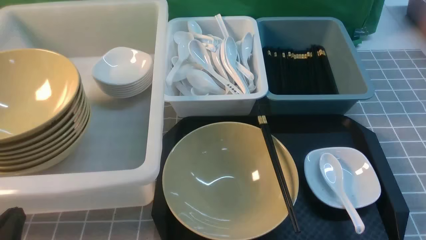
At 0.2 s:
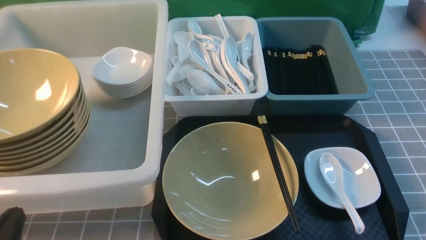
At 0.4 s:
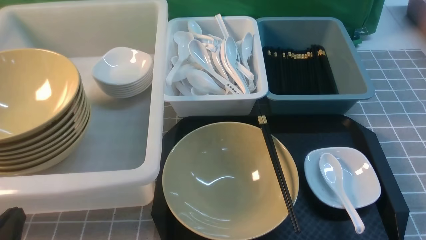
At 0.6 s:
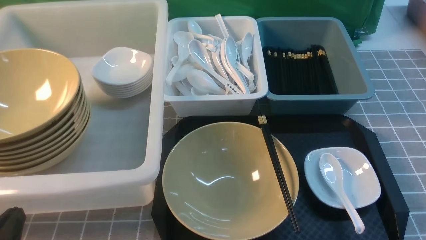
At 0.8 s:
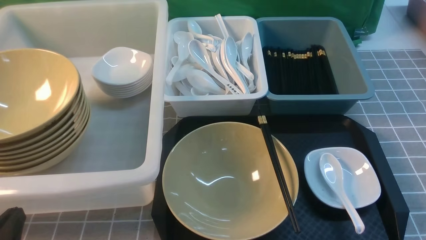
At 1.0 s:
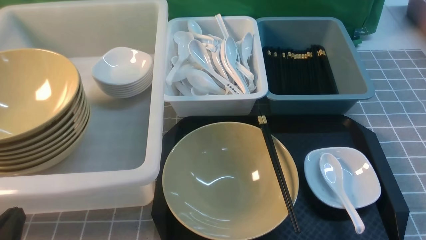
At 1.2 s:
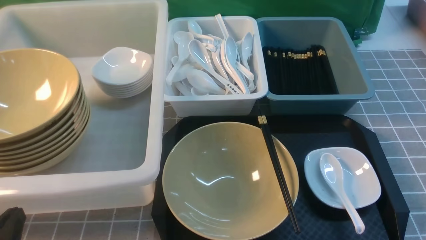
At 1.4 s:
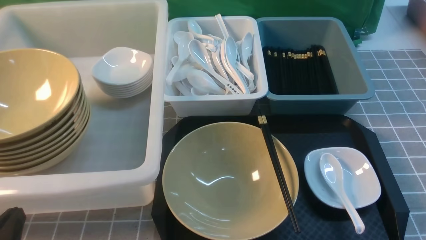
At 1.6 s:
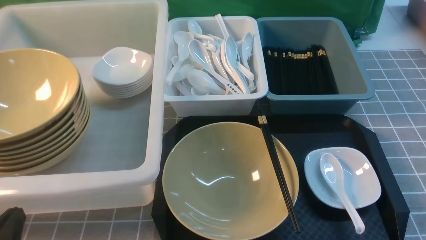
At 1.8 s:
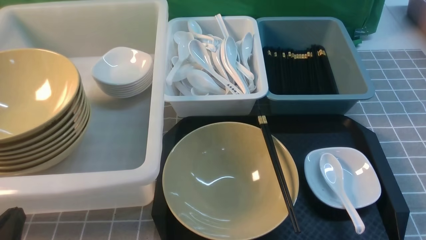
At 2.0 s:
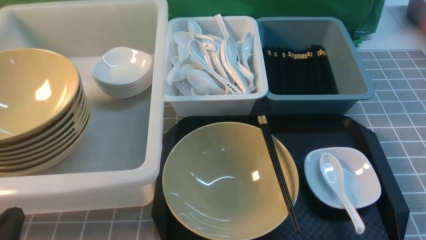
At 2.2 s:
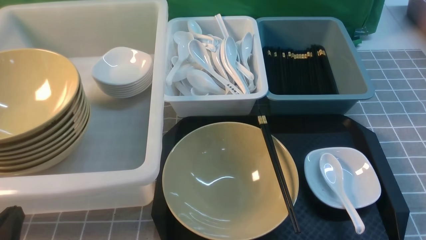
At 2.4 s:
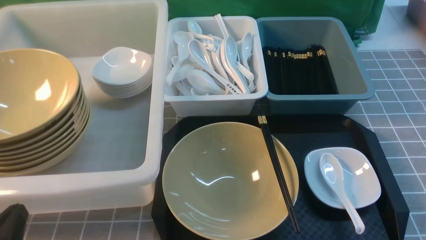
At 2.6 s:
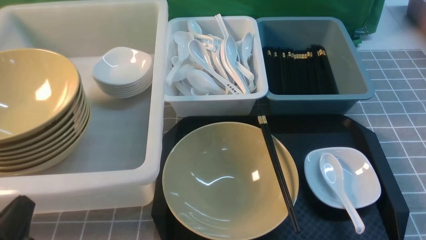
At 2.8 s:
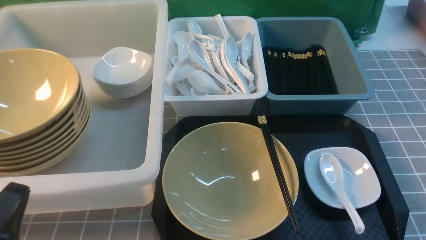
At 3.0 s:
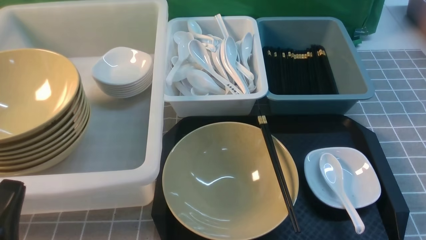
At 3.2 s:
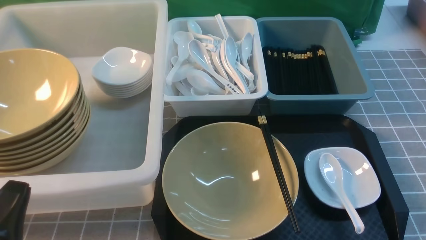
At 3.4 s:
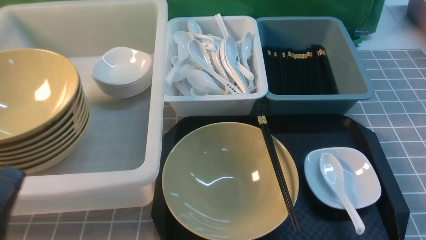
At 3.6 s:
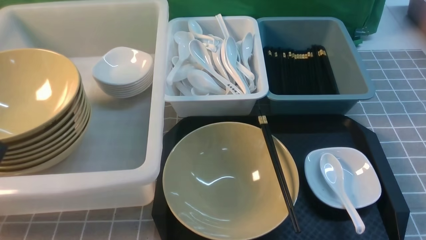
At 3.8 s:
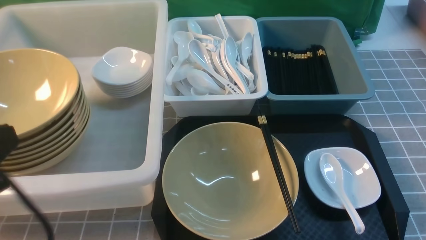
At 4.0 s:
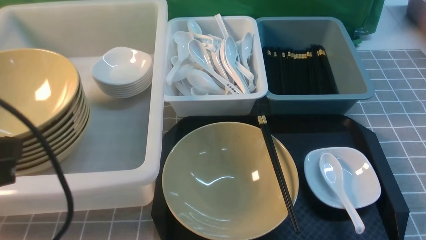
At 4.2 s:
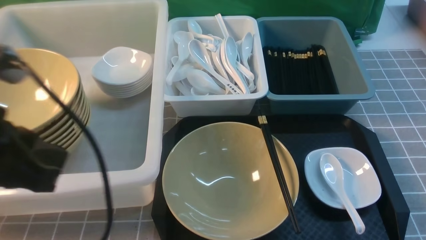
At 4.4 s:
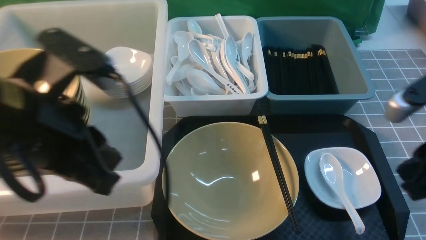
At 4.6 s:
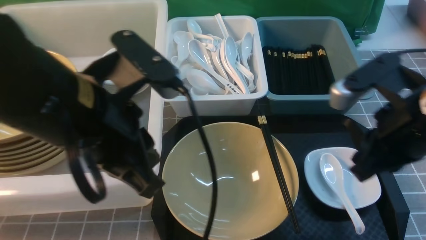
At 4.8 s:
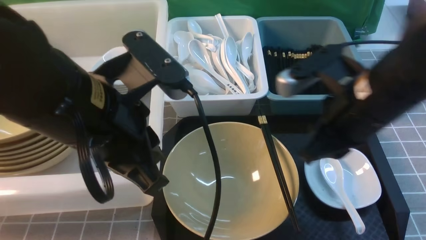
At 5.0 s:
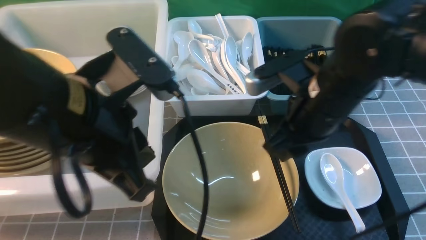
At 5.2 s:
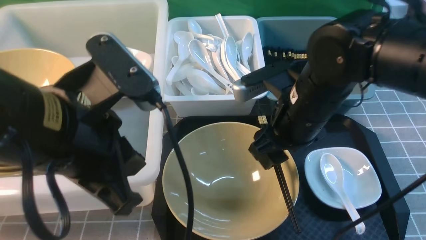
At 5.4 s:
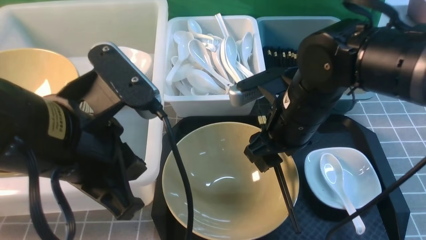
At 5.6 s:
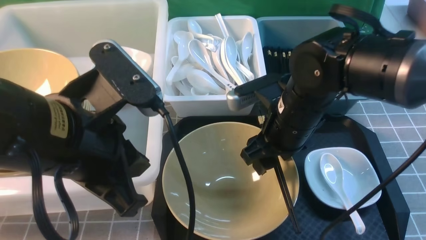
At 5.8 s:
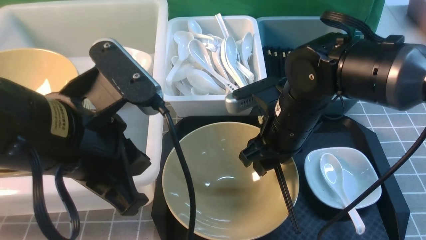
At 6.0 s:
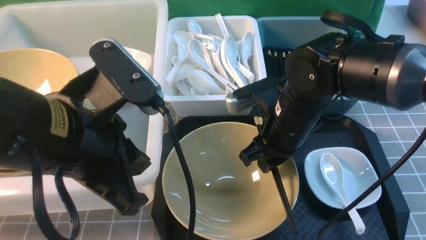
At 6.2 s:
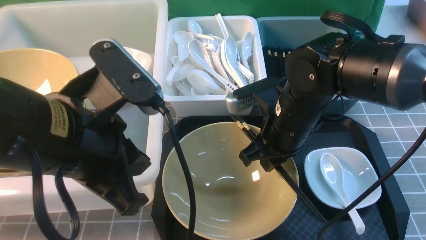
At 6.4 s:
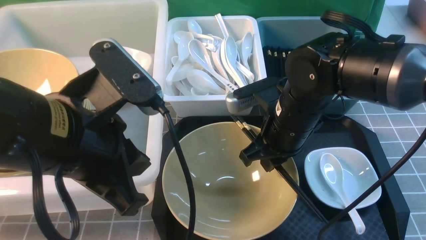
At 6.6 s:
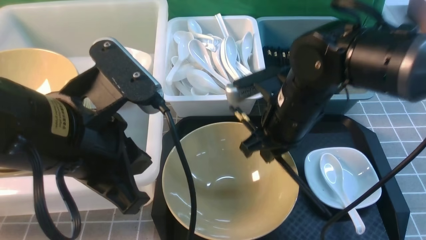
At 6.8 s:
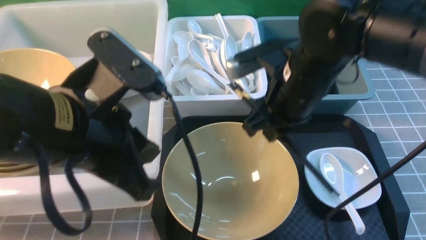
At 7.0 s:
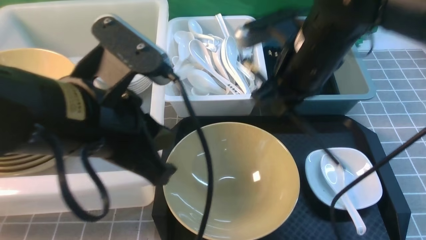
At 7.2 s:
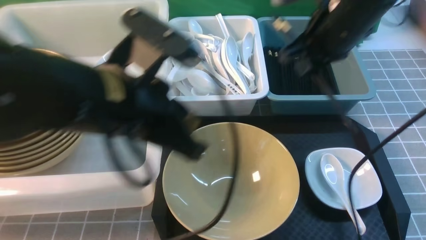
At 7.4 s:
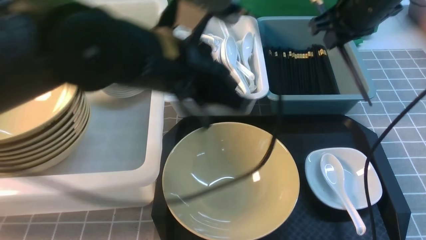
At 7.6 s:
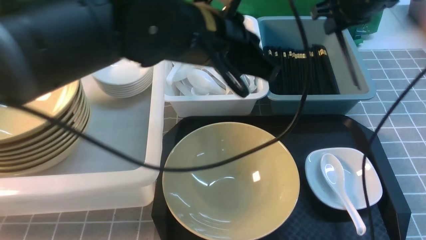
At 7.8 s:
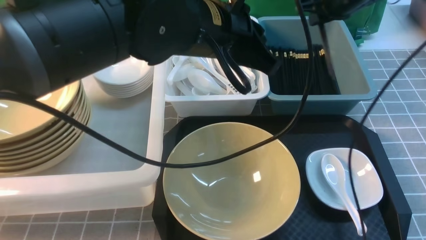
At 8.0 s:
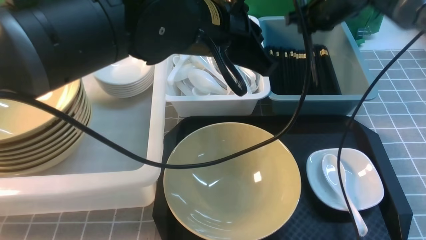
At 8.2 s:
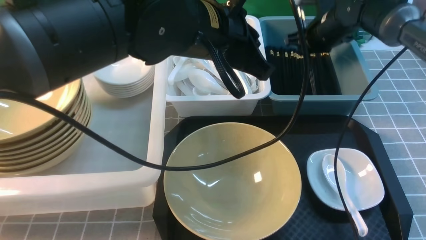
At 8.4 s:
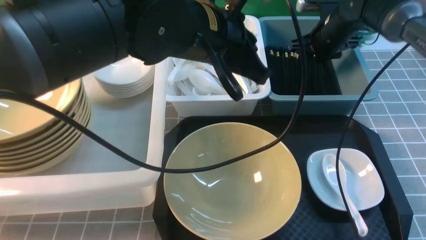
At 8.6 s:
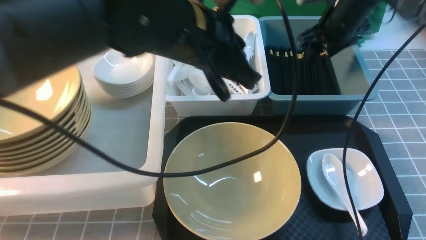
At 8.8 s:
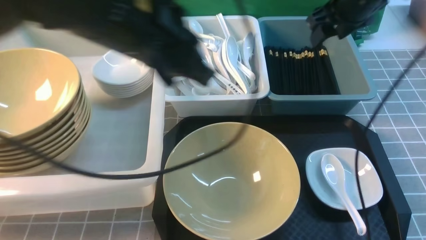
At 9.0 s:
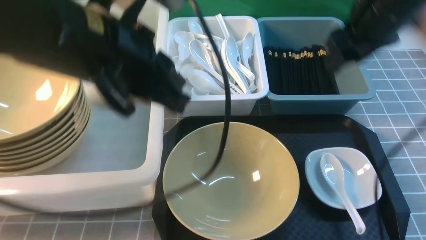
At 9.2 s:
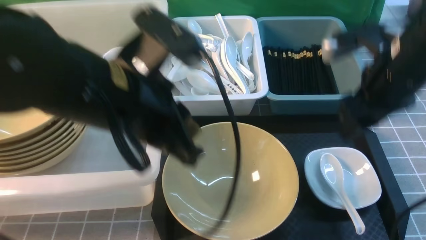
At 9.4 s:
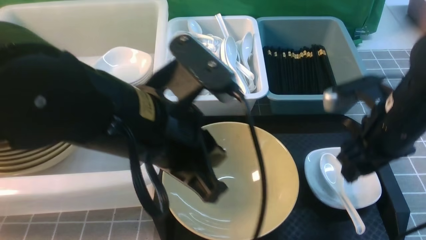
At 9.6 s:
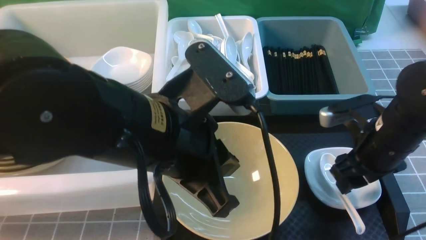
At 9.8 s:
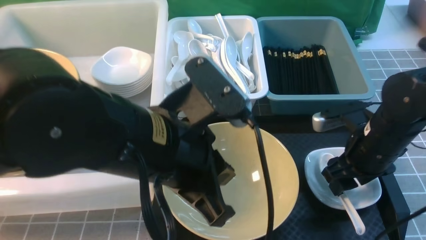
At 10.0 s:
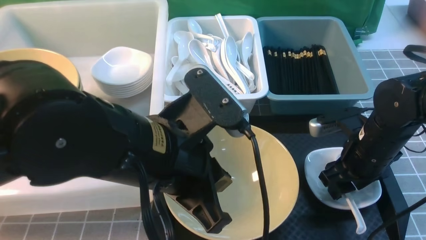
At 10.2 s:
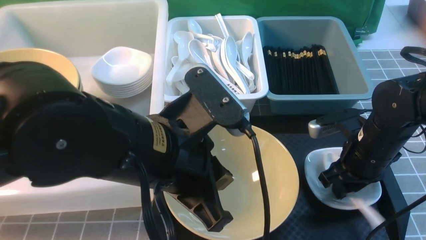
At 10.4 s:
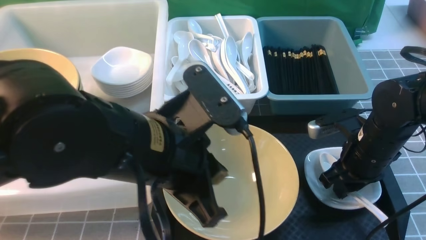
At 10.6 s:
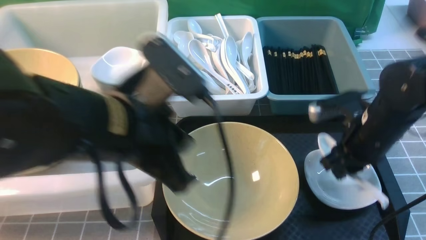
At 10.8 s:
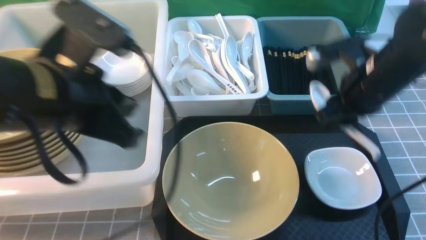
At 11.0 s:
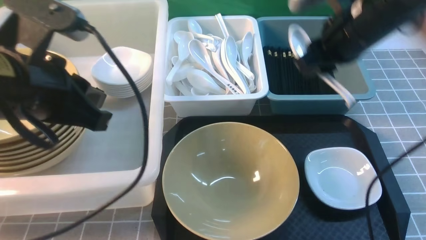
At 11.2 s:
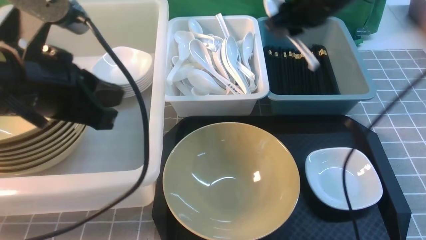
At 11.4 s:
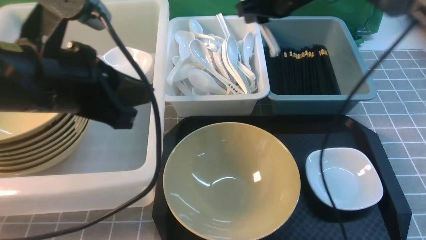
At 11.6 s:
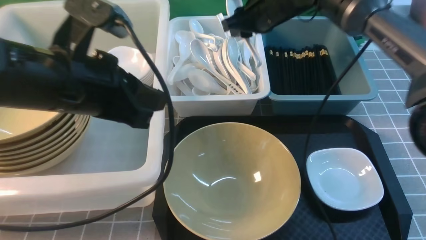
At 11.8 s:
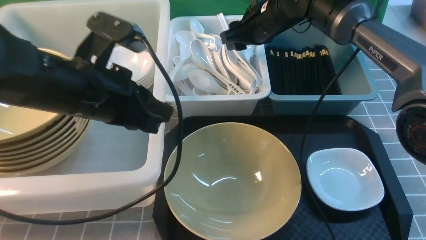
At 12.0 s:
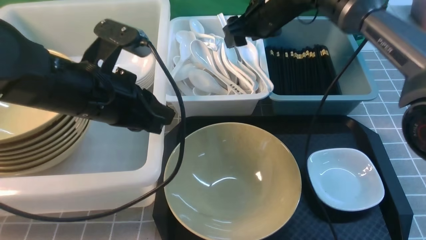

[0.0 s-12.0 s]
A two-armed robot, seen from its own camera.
Task of the whole recording: on grey table put chopsticks spoon bowls plates into blue grey white boxes.
Step, 0.0 to 6.6 s: use the right arm to grab the chopsticks.
Step, 6.8 to 8.4 s: use the right arm to put the chopsticks into the small storage box on the right.
Step, 8.6 to 10.8 s: use the right arm to grab the soup spoon in the middle.
0.0 to 1.6 s: Both grippers stay put.
3.0 to 4.4 s: The left gripper is displaced upward, forward and to the right by approximately 20 cm, while the right gripper travels upward, forward and to the left by approximately 20 cm, and closes up.
4.4 to 6.0 s: The right gripper is displaced to the left, forward and downward by approximately 20 cm, and opens up.
6.0 to 7.6 s: The right gripper travels forward, to the right and upward by some 20 cm. The left gripper travels forward and to the right by about 15 cm.
7.6 to 9.0 s: The left gripper travels to the left and backward by approximately 10 cm. The right gripper moves backward, about 10 cm, and opens.
9.0 to 10.4 s: The right gripper heads downward and backward, covering some 15 cm, and closes its fingers, while the left gripper moves some 5 cm.
10.4 to 12.0 s: The left gripper goes some 10 cm forward and to the left, while the right gripper goes some 25 cm forward, upward and to the left, and opens.

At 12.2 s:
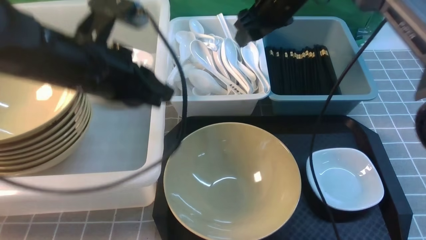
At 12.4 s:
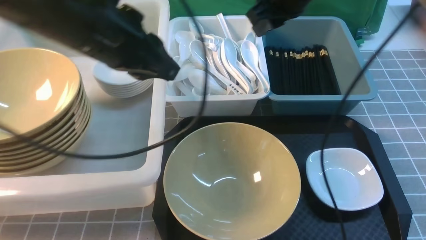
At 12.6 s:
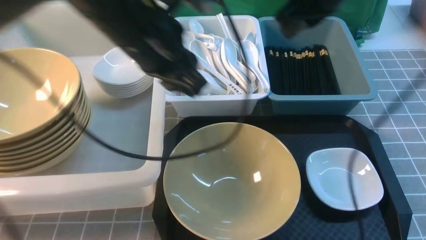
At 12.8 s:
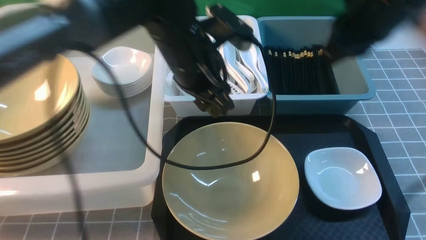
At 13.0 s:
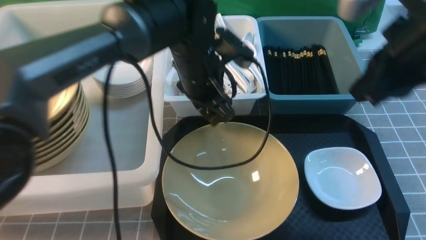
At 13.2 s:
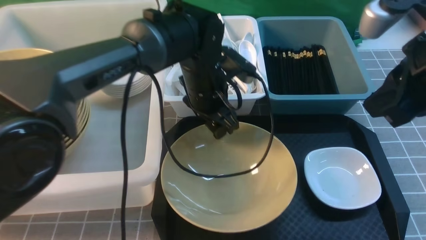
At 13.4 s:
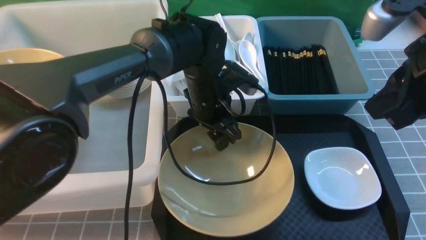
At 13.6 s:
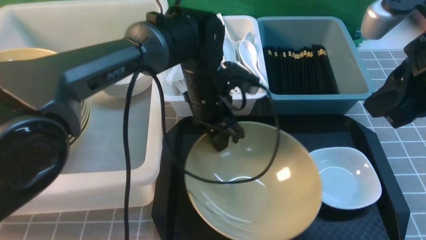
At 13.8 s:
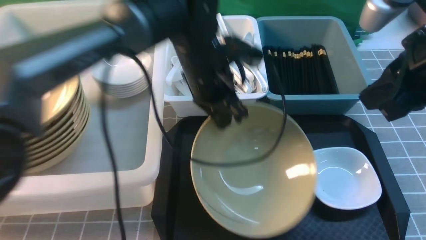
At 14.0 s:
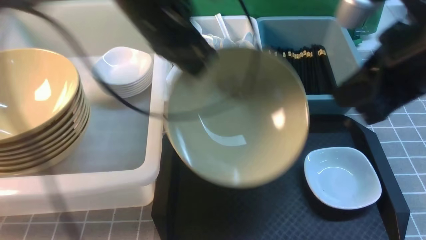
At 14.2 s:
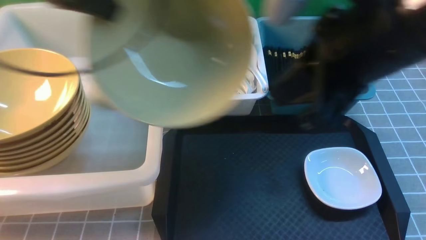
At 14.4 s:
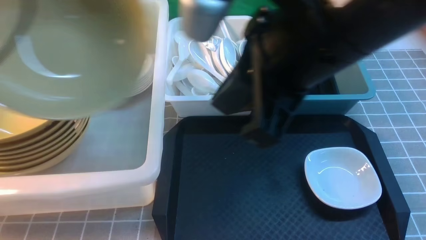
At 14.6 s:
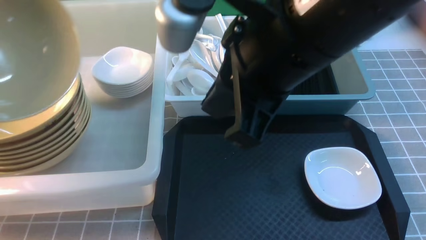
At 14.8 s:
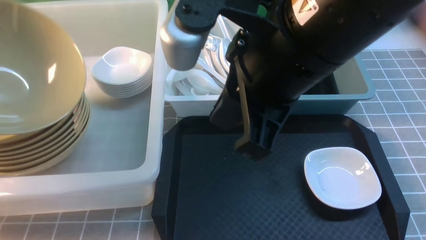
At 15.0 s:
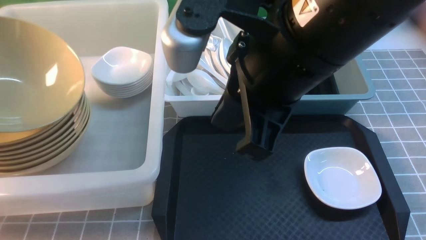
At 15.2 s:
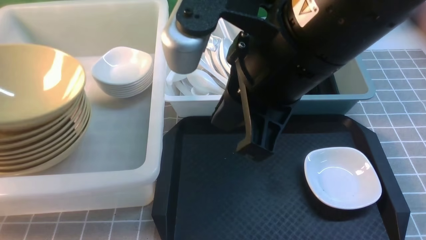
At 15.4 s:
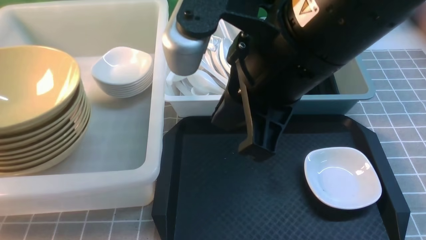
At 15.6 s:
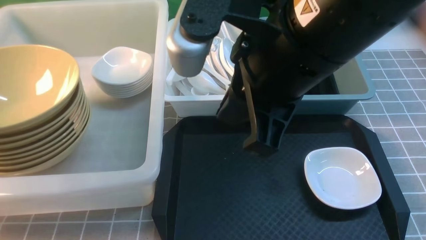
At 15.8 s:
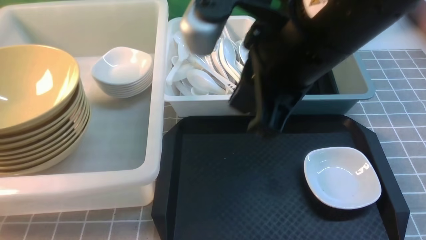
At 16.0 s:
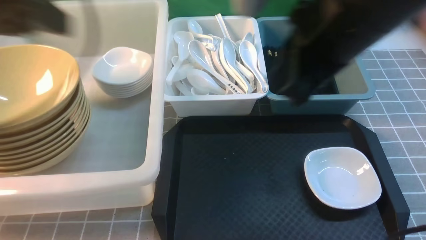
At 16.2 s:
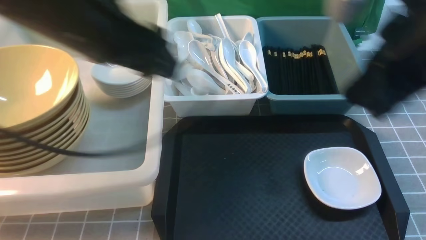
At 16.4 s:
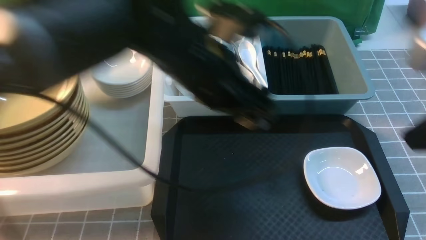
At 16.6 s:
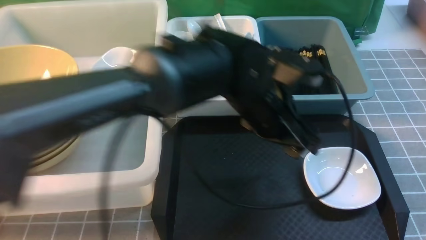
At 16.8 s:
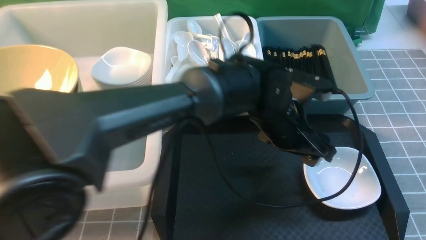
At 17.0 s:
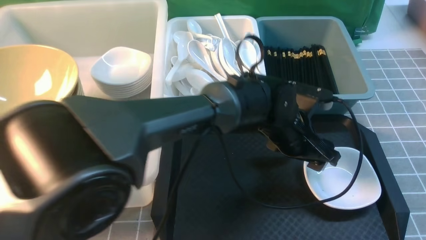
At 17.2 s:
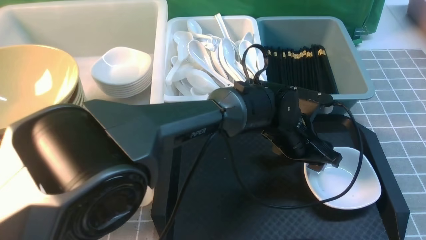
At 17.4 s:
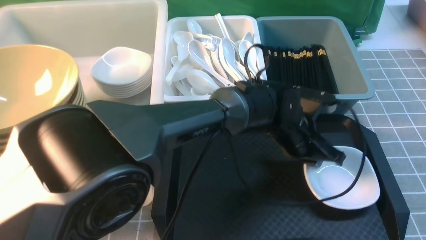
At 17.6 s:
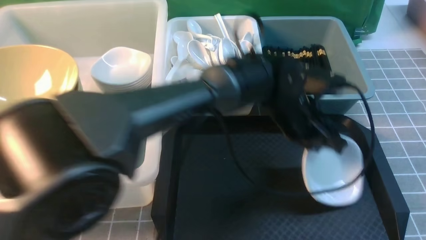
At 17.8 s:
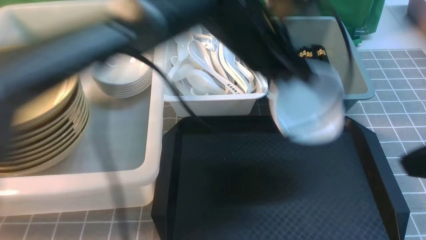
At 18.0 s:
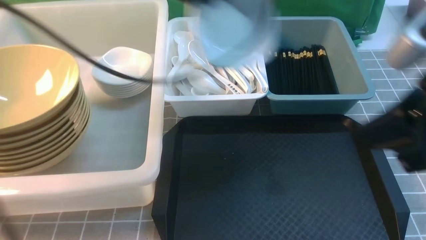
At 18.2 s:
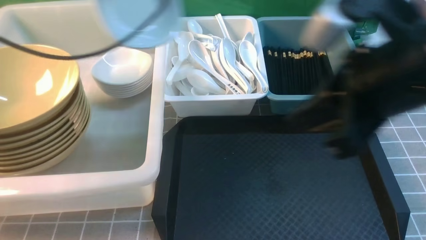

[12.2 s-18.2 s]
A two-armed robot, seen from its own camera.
Task of the whole recording: on grey table put chopsticks spoon bowls plates into blue grey white boxes.
Step, 12.2 to 13.8 s: use the left arm to grab the yellow noodle bowl on the left.
Step, 14.2 to 15.8 s: use the left arm to put the noodle bowl into the large storage box on the left.
Step, 16.0 to 17.6 s: use the left arm to grab the plate.
12.2 to 13.8 s: The right gripper moves backward, approximately 25 cm, and closes up, while the left gripper goes about 10 cm to the right and forward, reaches some 10 cm downward, then returns, and opens, then closes again.
13.8 to 15.2 s: The left gripper shifts approximately 35 cm to the left, and opens, while the right gripper heads to the left, covering roughly 15 cm.
15.2 to 16.6 s: The right gripper travels to the right by approximately 20 cm. Meanwhile the left gripper travels to the right by some 50 cm, and opens its fingers.
16.6 to 18.2 s: The right gripper shifts approximately 15 cm to the left and forward. Meanwhile the left gripper heads to the left and upward, covering roughly 30 cm, and closes up.
